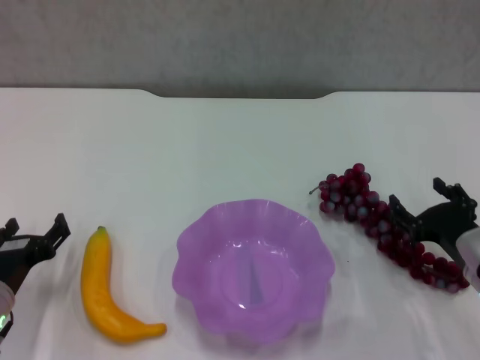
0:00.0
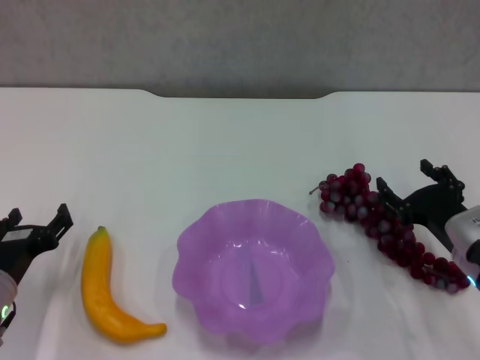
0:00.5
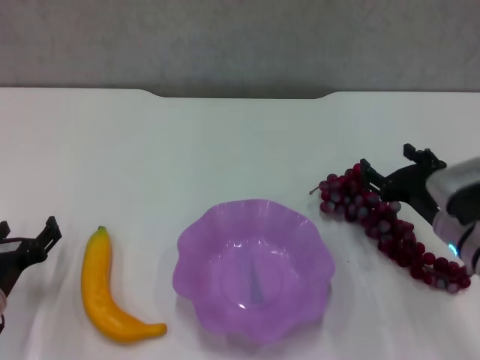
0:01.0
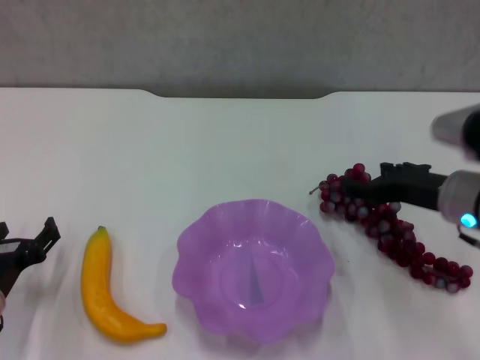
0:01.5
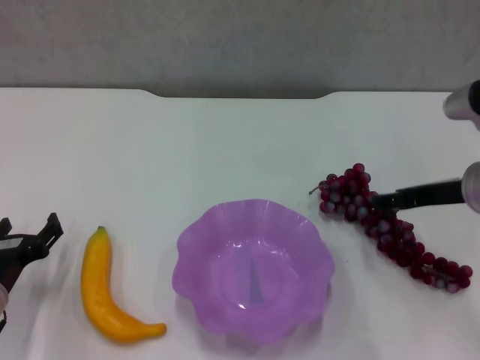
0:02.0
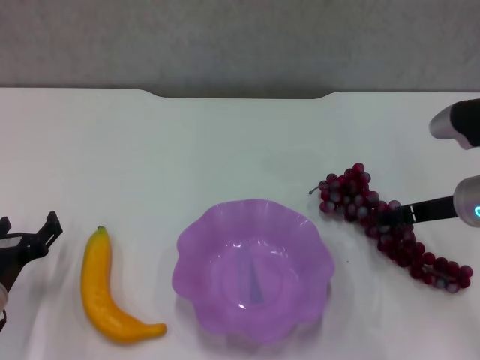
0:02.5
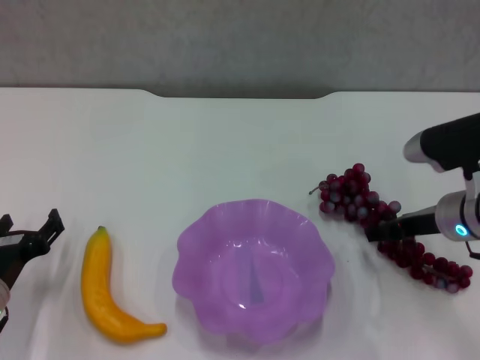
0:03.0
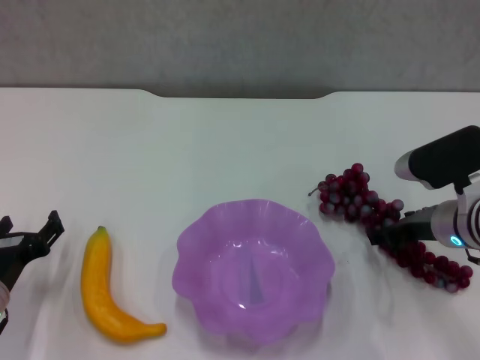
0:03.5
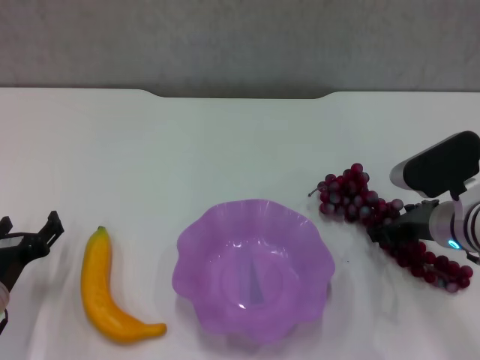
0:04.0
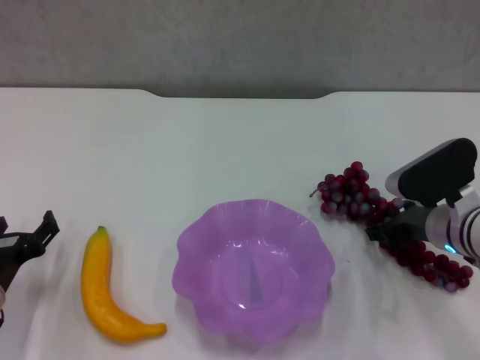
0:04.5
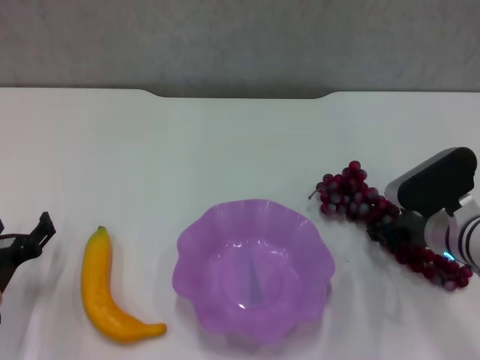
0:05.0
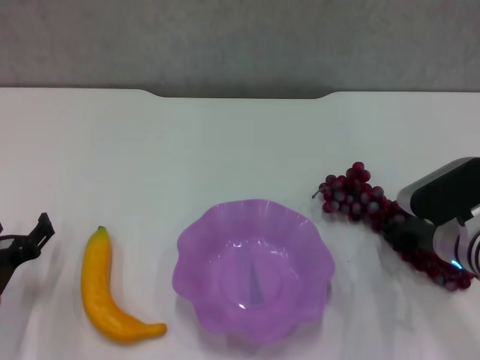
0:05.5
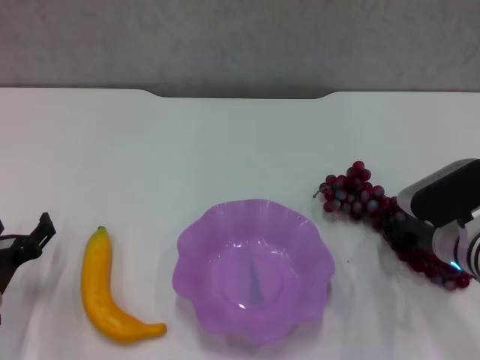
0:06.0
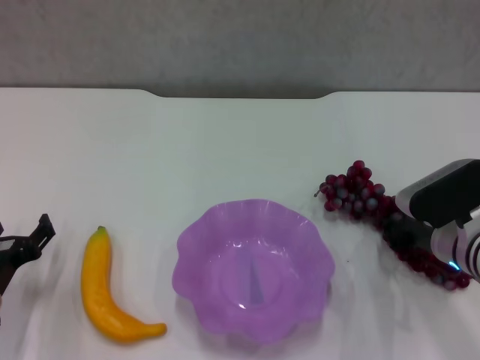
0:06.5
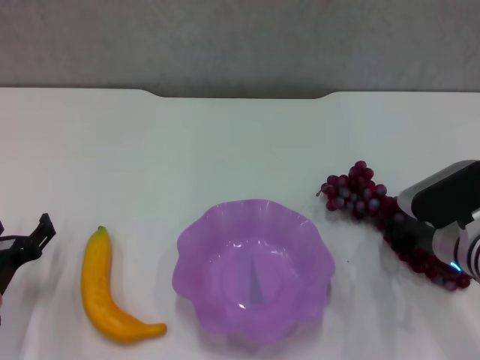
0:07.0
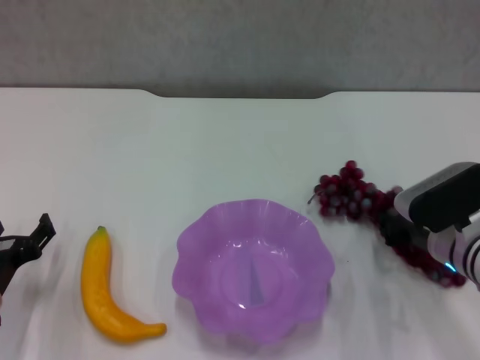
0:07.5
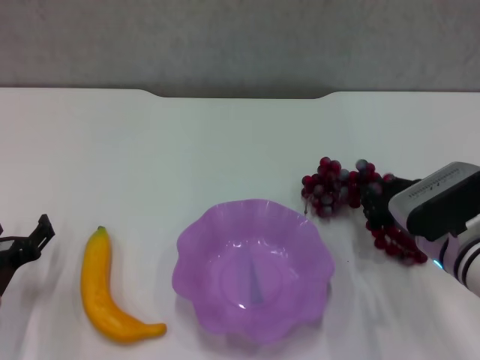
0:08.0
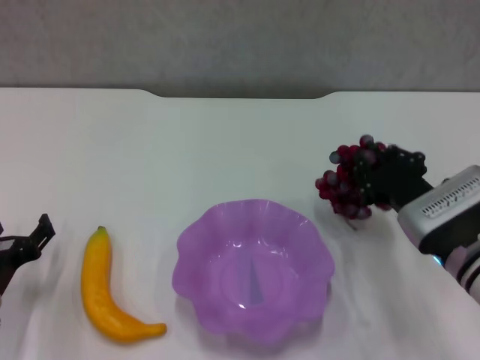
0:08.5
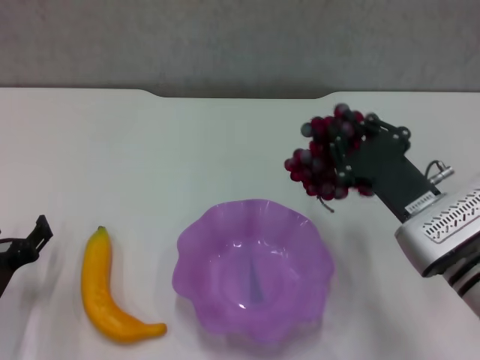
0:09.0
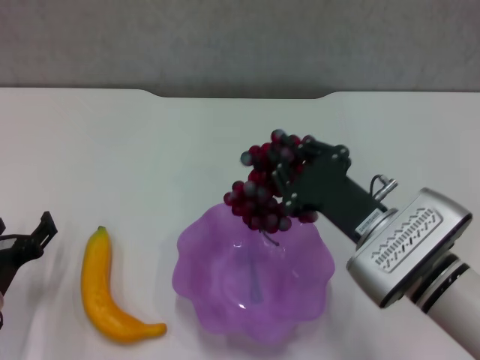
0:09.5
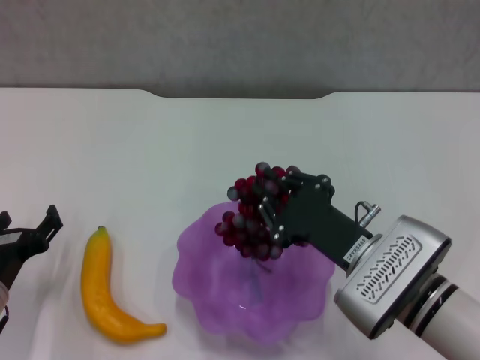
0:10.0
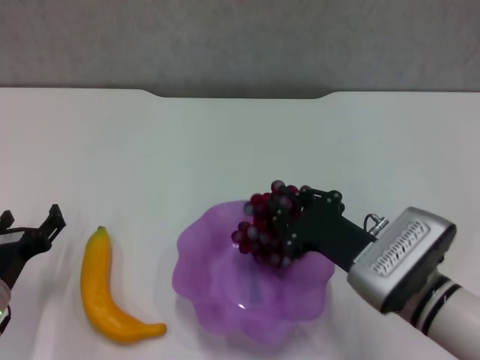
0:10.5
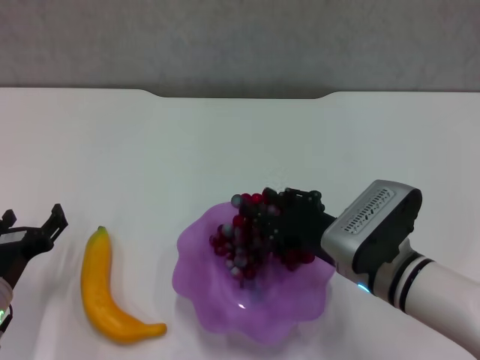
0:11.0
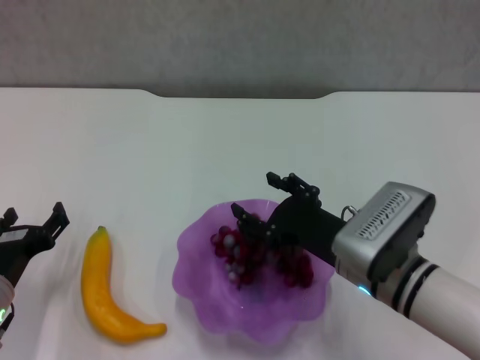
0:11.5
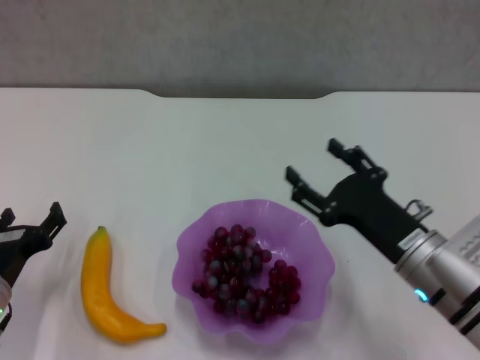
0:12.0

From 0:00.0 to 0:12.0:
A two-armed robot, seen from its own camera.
Step, from 0:00.0 to 0:05.5: Grasp the grape with right gripper.
Step, from 0:06.0 to 0:11.5: Place the grape in the purple plate with right gripper.
From 0:00.0 to 0:02.0: The right gripper is displaced upward and forward by about 15 cm.
From 0:02.0 to 0:04.0: The right gripper moves downward, roughly 10 cm.
From 0:04.0 to 0:06.0: The right gripper closes its fingers.
From 0:06.0 to 0:08.0: The grippers stay close to where they were, moving slightly.
From 0:08.0 to 0:10.0: The right gripper moves to the left and backward, some 10 cm.
From 0:10.0 to 0:12.0: The right gripper opens its fingers.

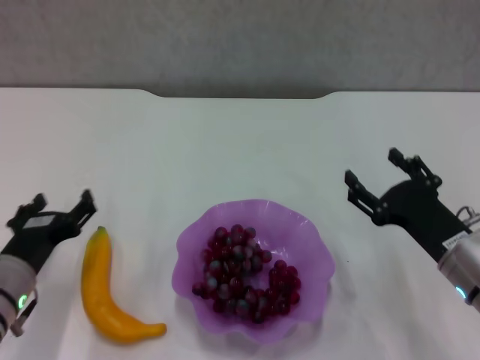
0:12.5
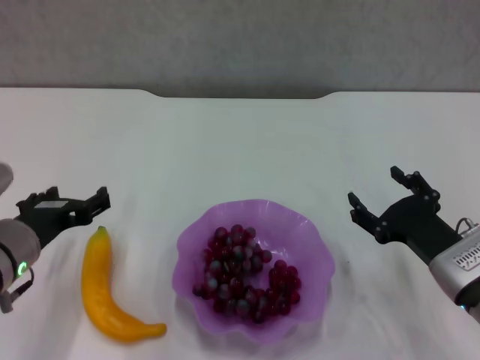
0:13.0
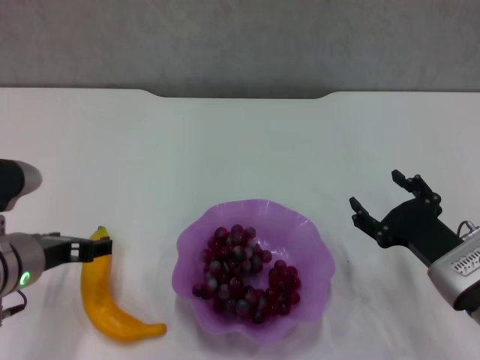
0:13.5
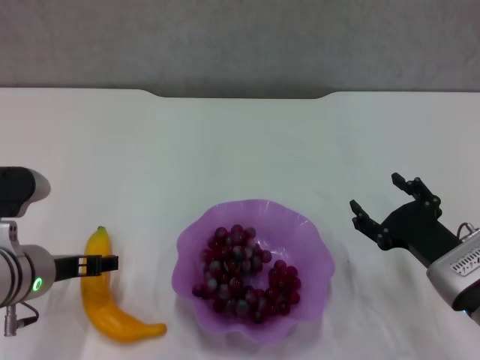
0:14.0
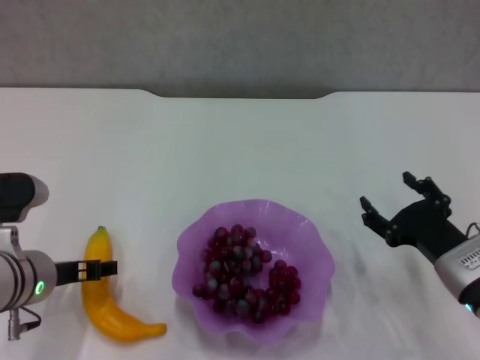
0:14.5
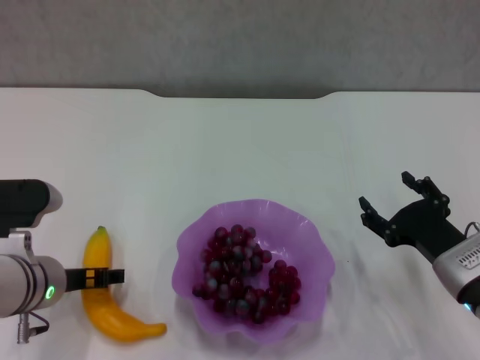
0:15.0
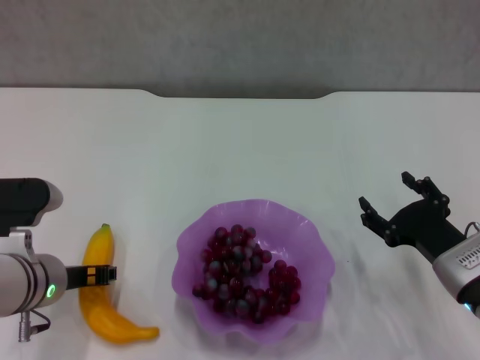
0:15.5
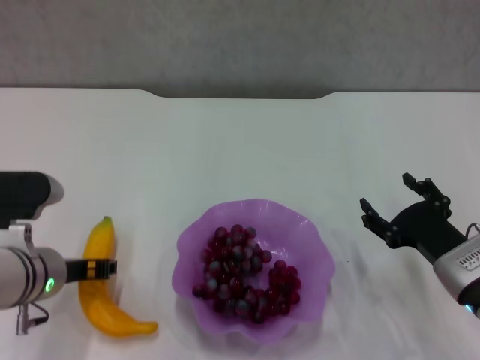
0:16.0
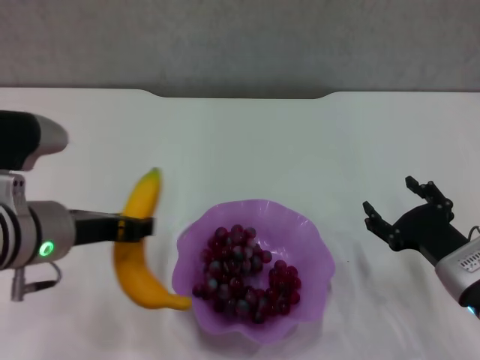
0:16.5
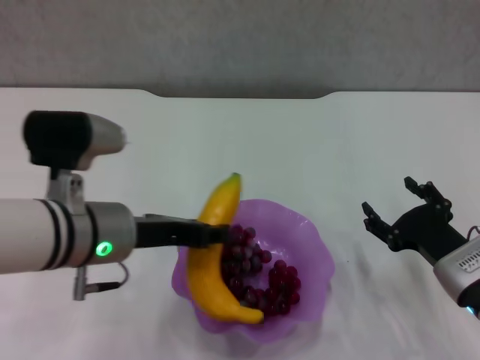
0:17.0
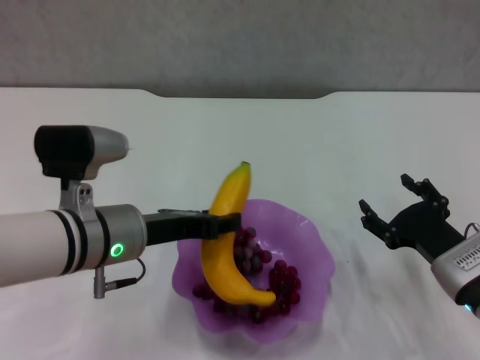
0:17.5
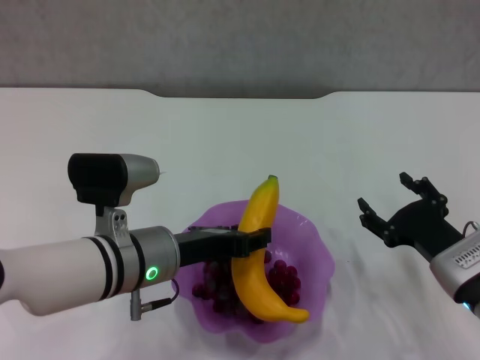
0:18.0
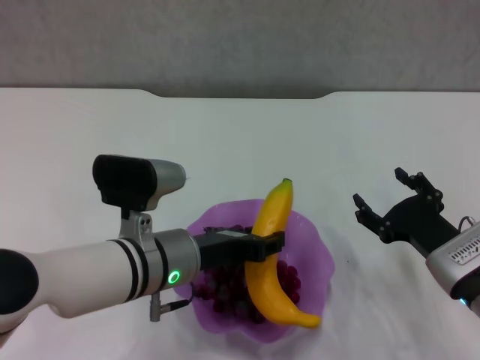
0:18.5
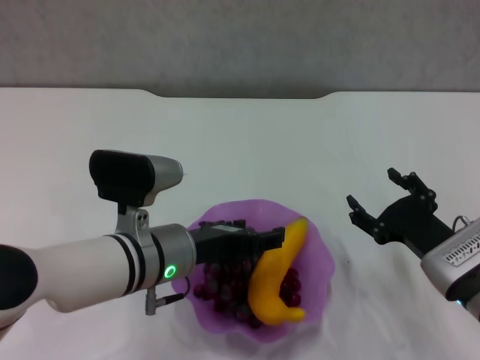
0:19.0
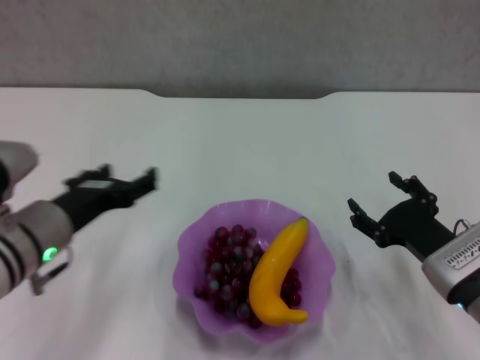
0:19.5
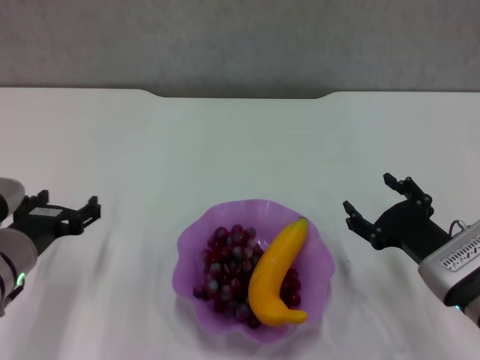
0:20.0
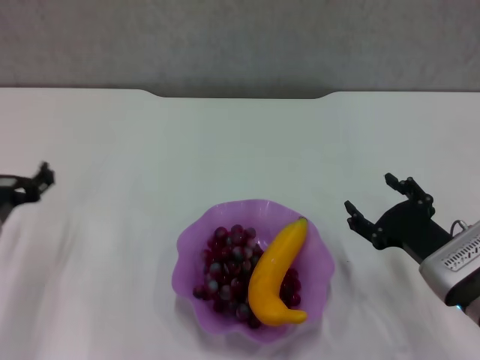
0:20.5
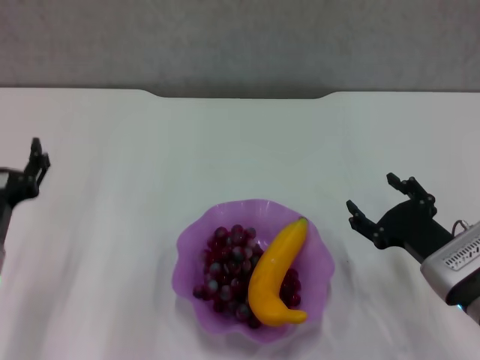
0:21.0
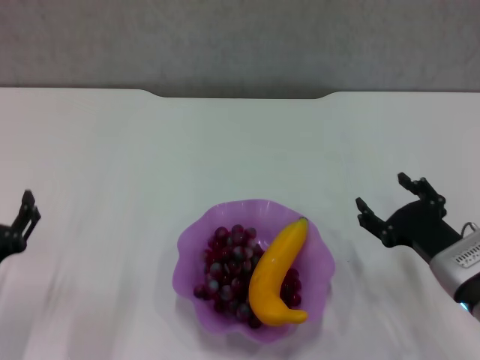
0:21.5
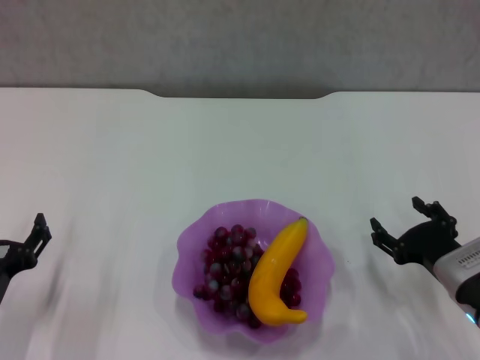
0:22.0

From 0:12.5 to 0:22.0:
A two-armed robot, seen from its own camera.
Step, from 0:12.5 to 0:15.5: Grasp the banana with left gripper.
Step, from 0:16.0 to 0:19.0: Place the banana in the purple plate with left gripper.
From 0:12.5 to 0:14.5: The left gripper shifts by roughly 5 cm.
From 0:14.5 to 0:16.5: The left gripper is displaced upward by about 5 cm, and closes its fingers.
From 0:16.5 to 0:18.0: The left gripper heads to the right and downward, covering some 10 cm.
From 0:18.0 to 0:20.0: The left gripper goes approximately 10 cm to the left, and opens its fingers.
From 0:20.0 to 0:22.0: The left gripper shifts some 10 cm backward and downward.
